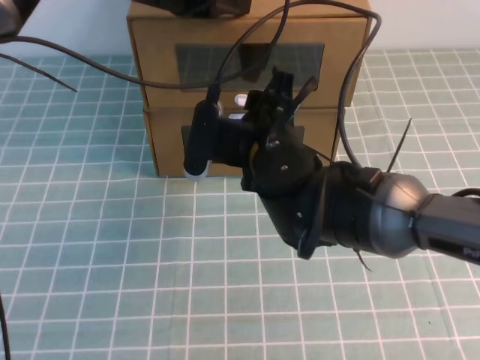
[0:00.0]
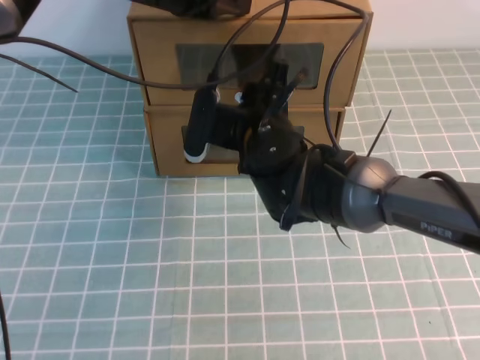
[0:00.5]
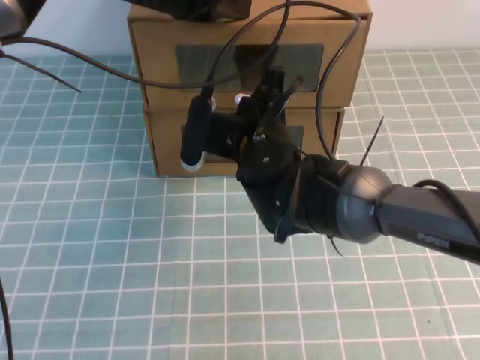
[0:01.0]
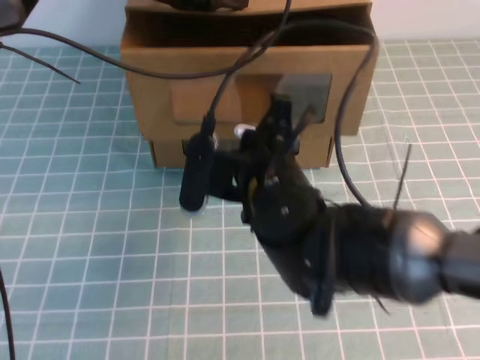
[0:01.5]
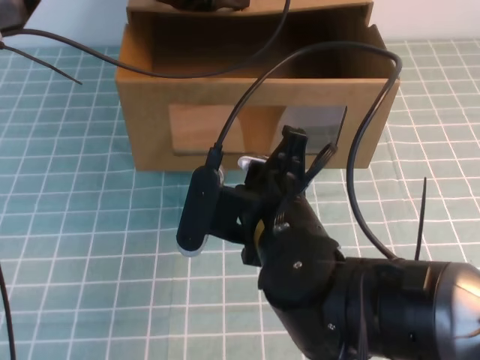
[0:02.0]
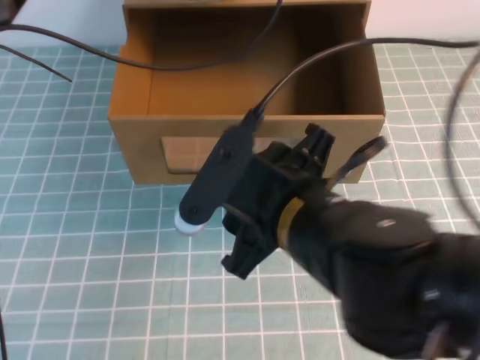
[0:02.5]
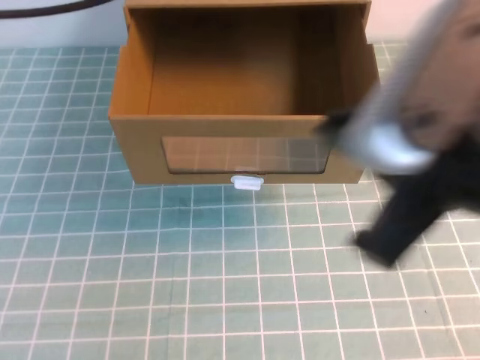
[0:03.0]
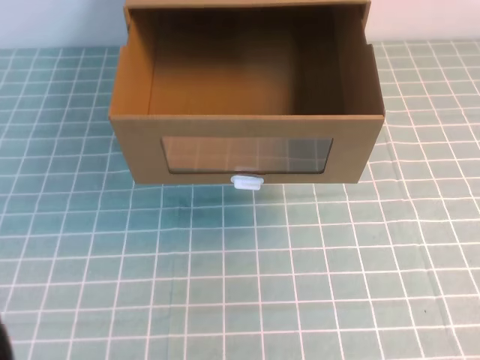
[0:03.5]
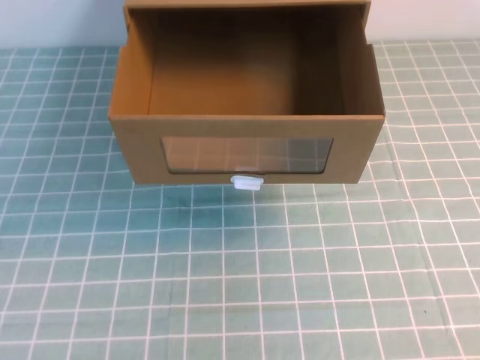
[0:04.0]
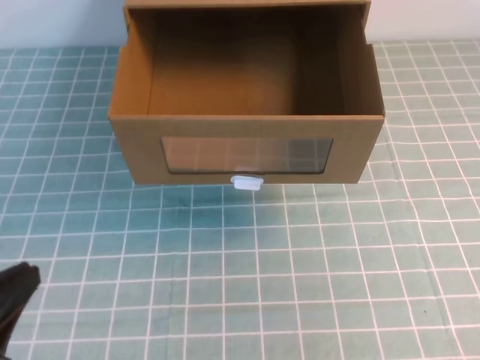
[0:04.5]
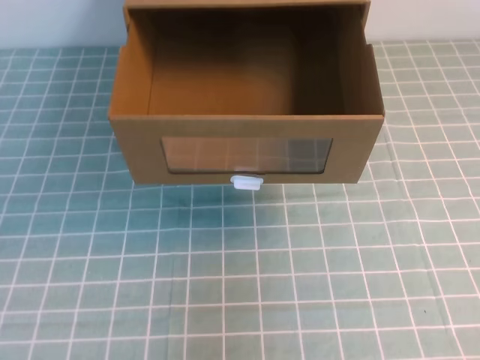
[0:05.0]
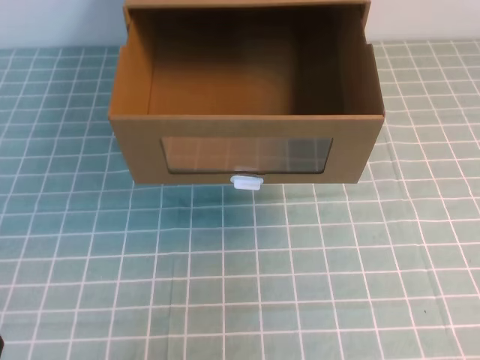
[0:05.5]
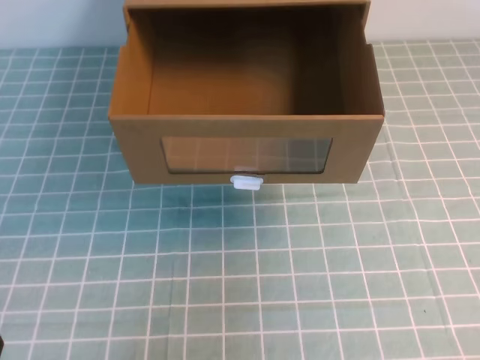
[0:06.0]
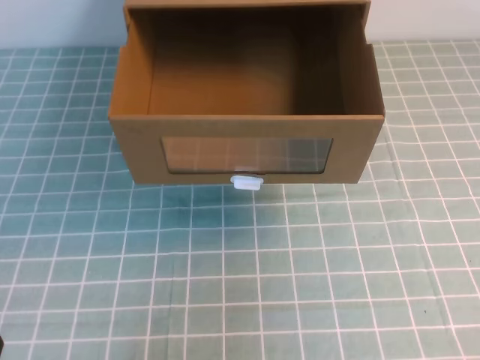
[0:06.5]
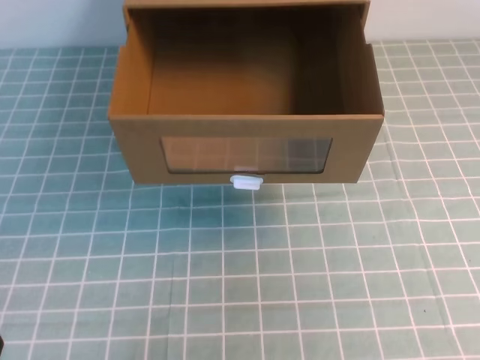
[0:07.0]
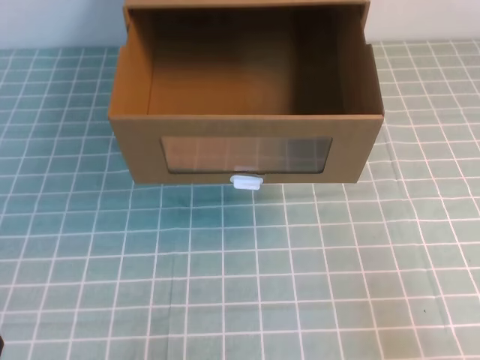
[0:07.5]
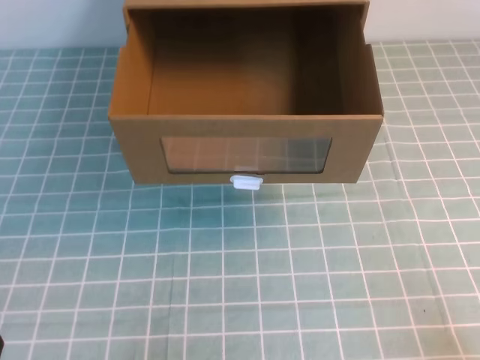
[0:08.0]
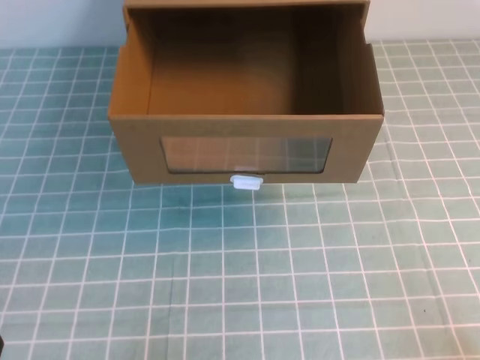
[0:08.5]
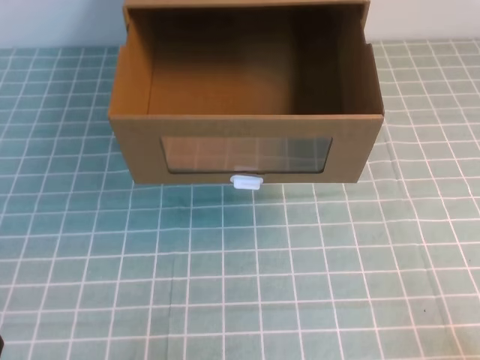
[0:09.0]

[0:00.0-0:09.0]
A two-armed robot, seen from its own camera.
Task of the whole recording: open the shoebox on the cyan tablecloth.
Step, 0:00.0 to 0:09.0: Open the shoe box.
0:00.0 to 0:02.0: The right gripper shifts roughly 10 cm backward, and closes up.
0:02.0 to 0:04.5: The left gripper heads backward and to the left, covering approximately 40 cm; the right gripper goes some 35 cm to the right, upward and backward, and opens, then closes once more.
0:04.5 to 0:07.0: The left gripper is displaced downward by roughly 10 cm.

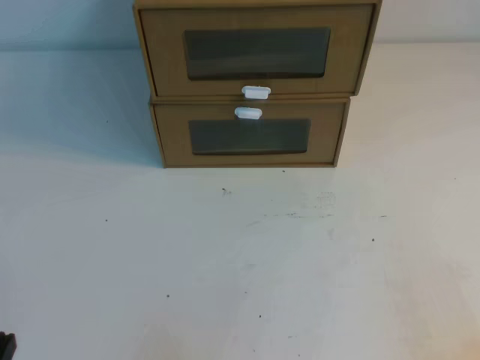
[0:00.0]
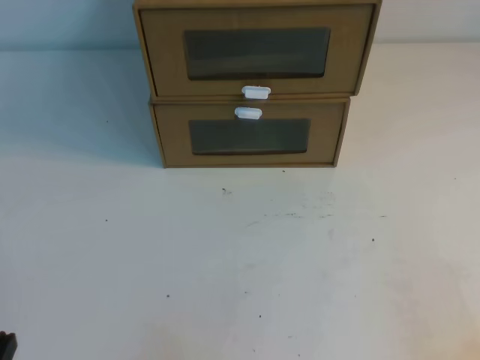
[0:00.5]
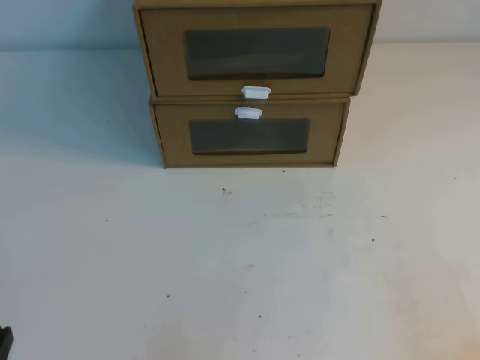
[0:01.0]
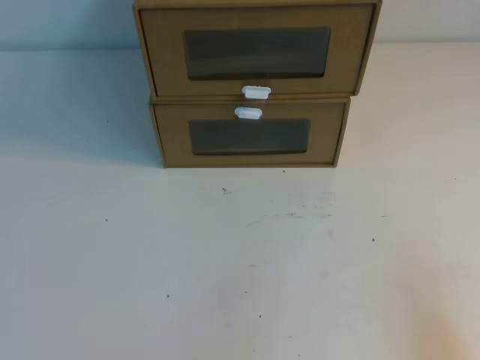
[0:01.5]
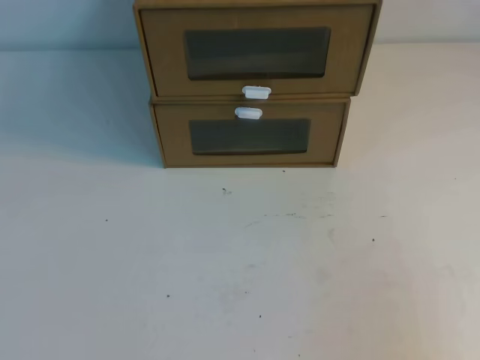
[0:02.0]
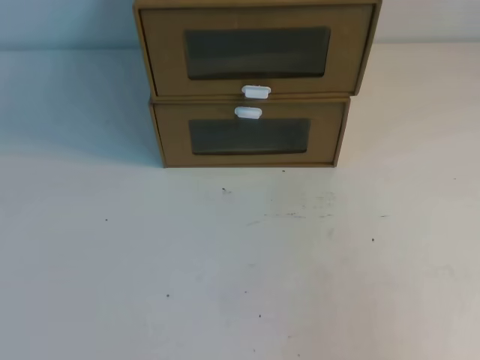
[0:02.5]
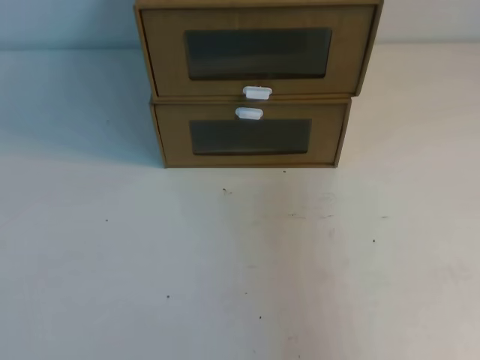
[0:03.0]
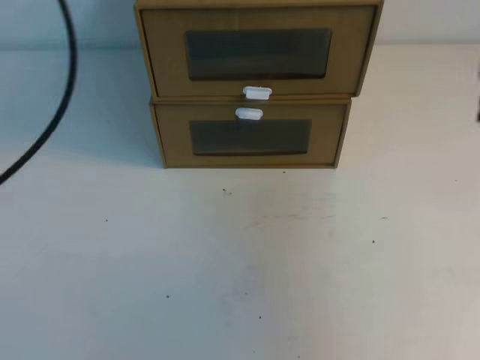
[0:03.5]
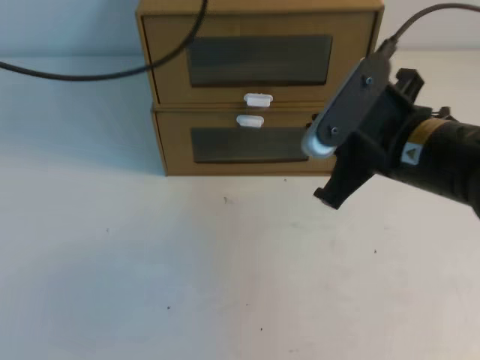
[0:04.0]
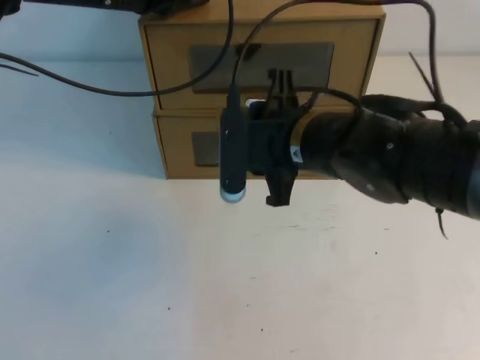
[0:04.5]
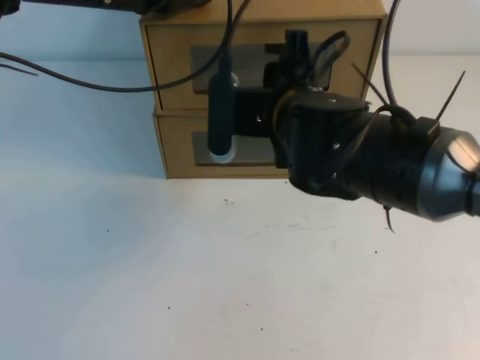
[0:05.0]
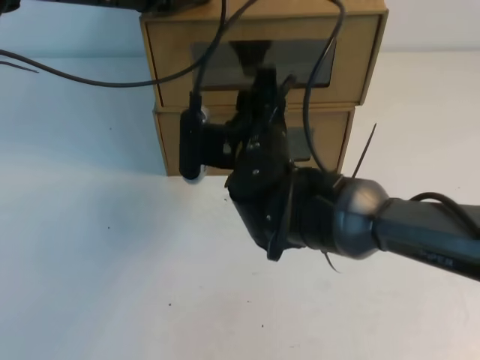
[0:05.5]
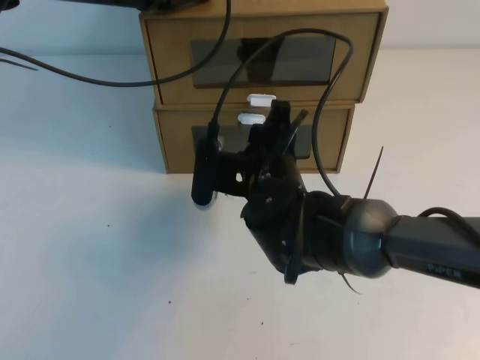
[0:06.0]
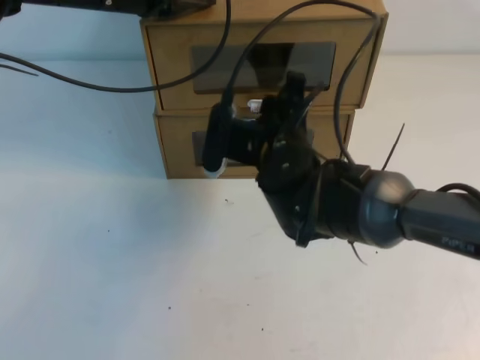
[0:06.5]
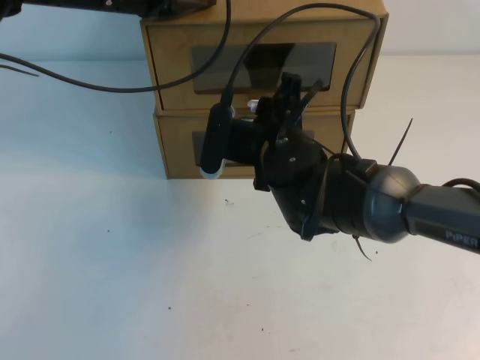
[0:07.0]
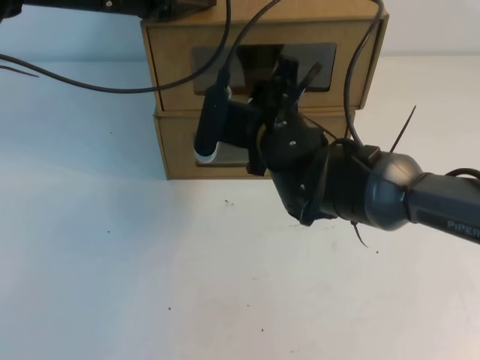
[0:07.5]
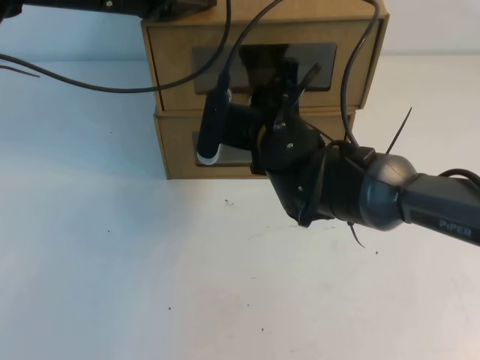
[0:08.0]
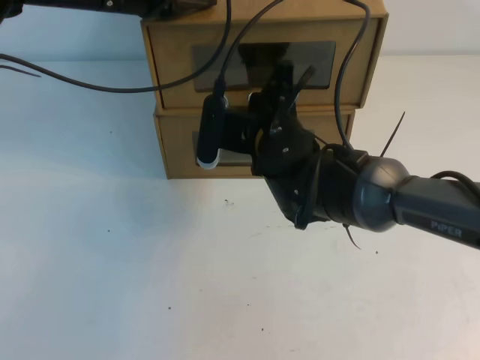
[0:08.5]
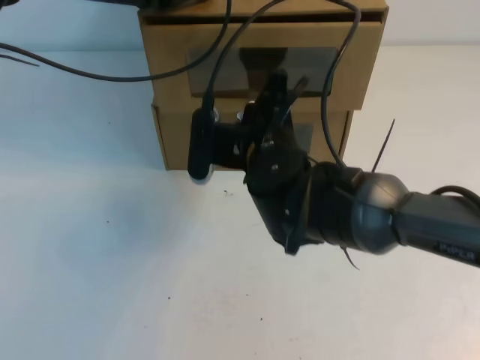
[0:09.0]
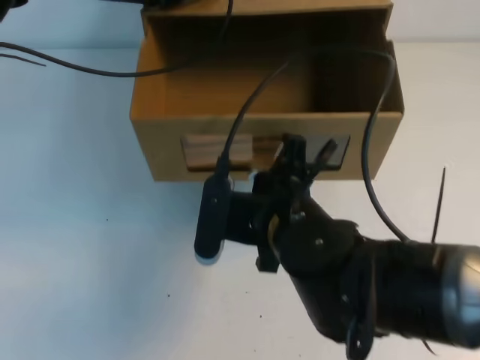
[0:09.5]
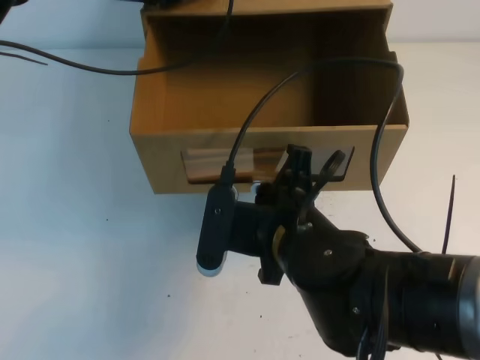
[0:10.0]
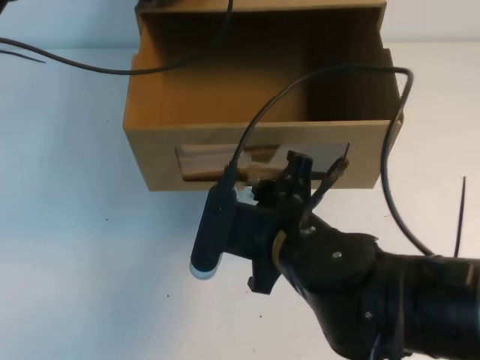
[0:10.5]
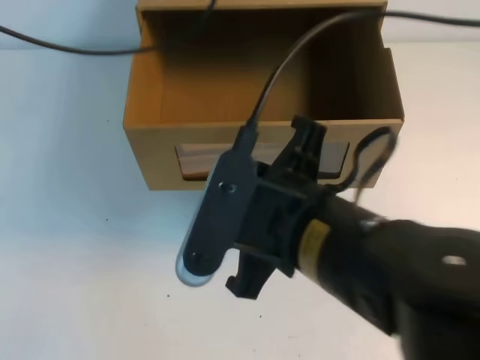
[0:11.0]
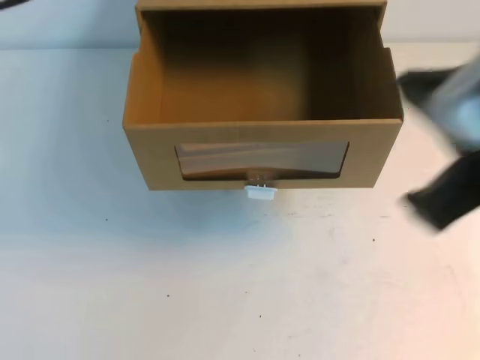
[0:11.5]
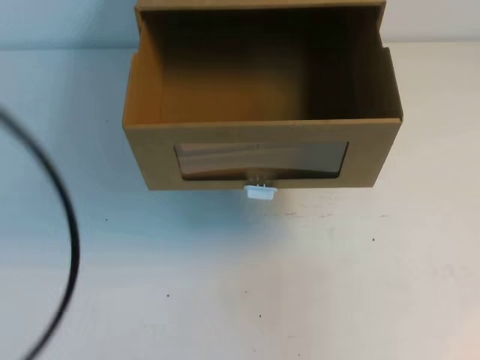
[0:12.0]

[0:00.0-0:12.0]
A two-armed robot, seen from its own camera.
Task of the whole recording: open the shoebox on the table.
0:02.0 to 0:04.0: The left gripper is displaced forward and upward by approximately 40 cm; the right gripper travels forward and to the left by roughly 30 cm.
0:04.0 to 0:06.0: The left gripper heads downward and forward, covering approximately 10 cm. The right gripper heads to the left, downward and forward, covering roughly 15 cm, and opens up.
0:06.0 to 0:08.0: The right gripper moves some 5 cm, and closes.
0:08.0 to 0:10.0: The right gripper shifts roughly 15 cm backward, and closes up.
0:10.0 to 0:12.0: The left gripper is displaced backward by approximately 30 cm. The right gripper travels to the right, upward and backward by roughly 30 cm, and opens, then closes once more.

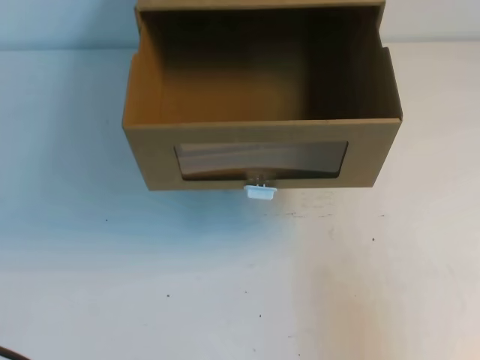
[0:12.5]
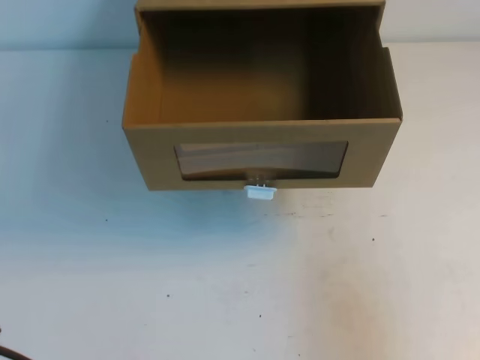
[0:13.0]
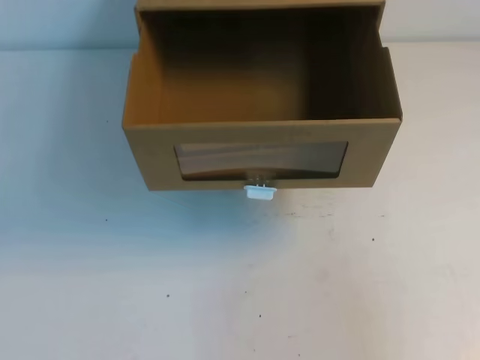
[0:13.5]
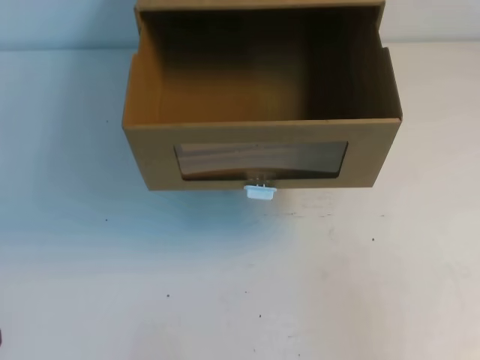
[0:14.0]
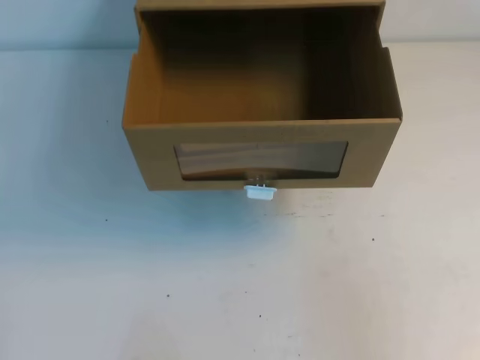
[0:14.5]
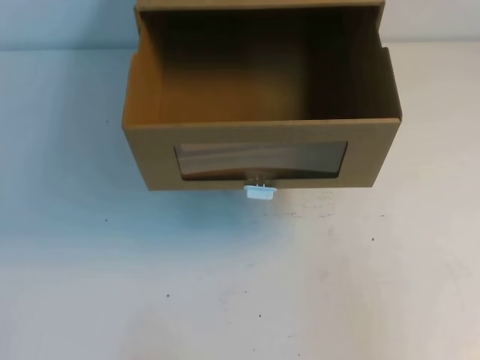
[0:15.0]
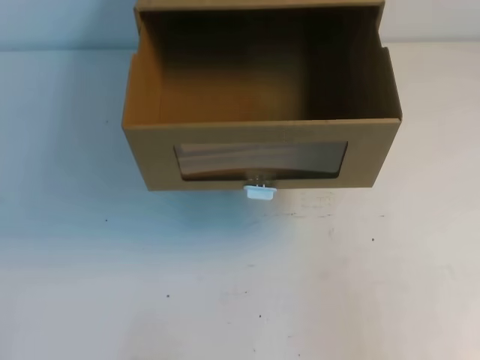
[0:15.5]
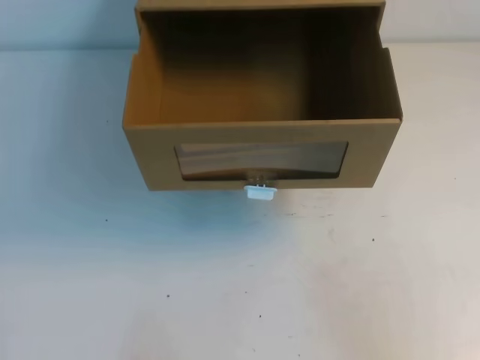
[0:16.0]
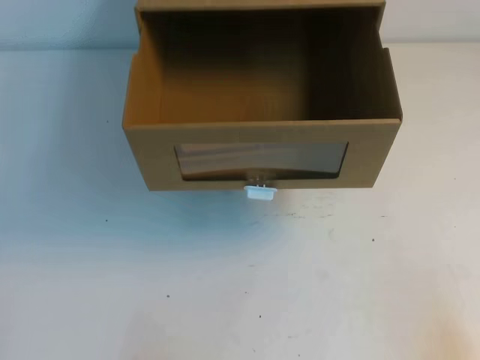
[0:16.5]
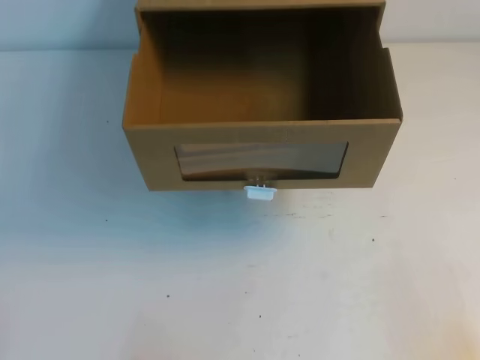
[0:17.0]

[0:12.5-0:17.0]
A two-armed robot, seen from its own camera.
Task of the whole recording: open the shoebox on the table.
0:14.5 to 0:17.0: The right gripper travels downward by some 15 cm.
